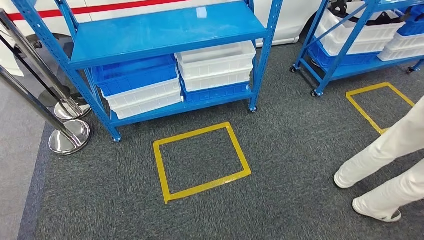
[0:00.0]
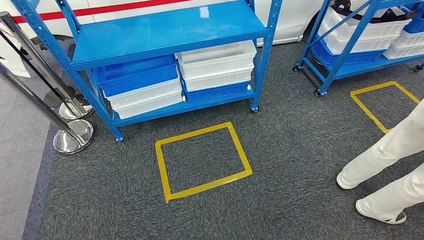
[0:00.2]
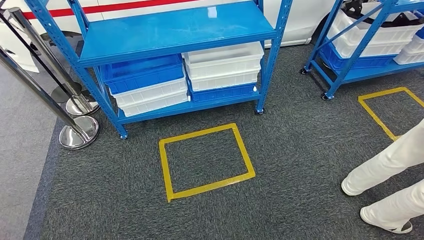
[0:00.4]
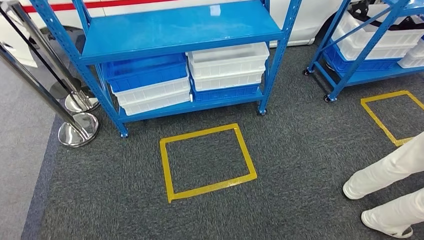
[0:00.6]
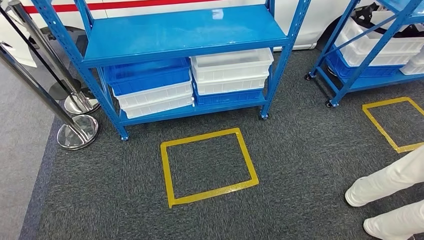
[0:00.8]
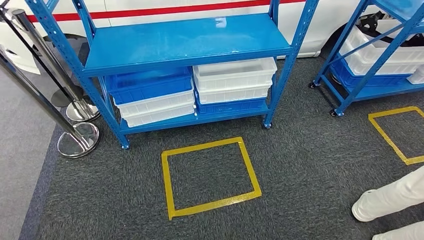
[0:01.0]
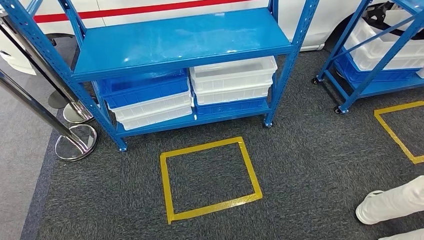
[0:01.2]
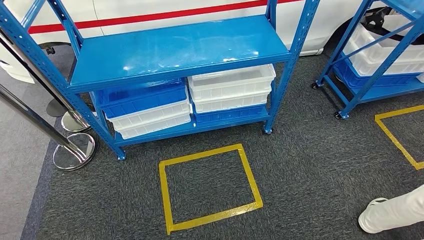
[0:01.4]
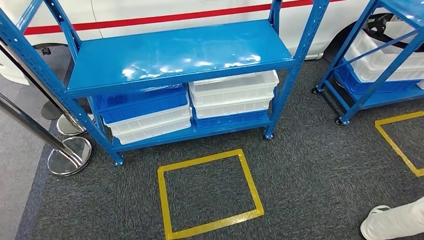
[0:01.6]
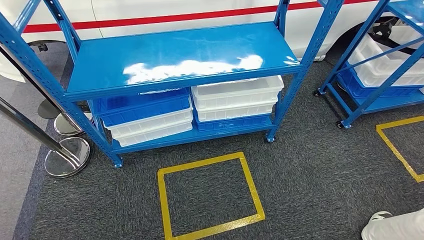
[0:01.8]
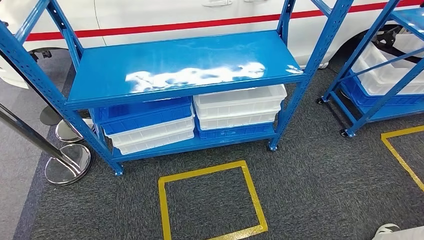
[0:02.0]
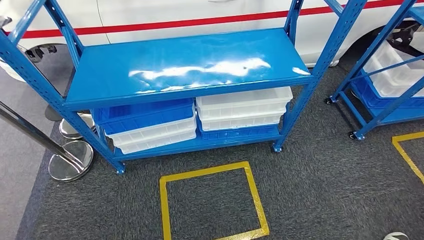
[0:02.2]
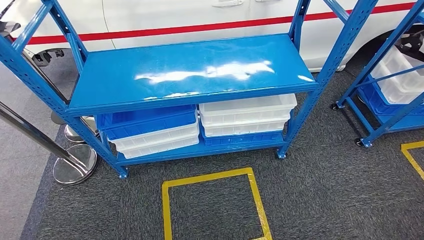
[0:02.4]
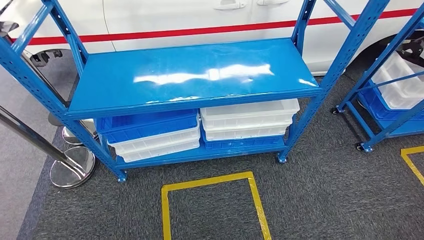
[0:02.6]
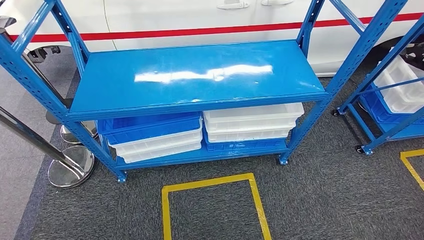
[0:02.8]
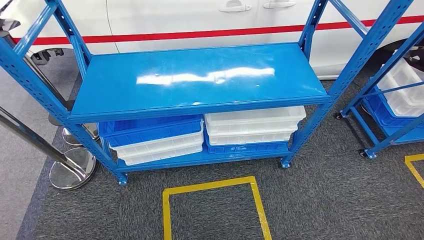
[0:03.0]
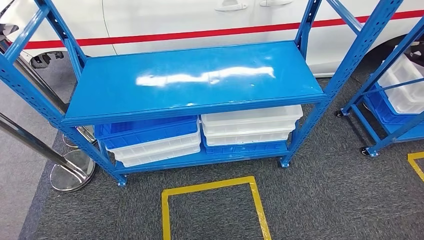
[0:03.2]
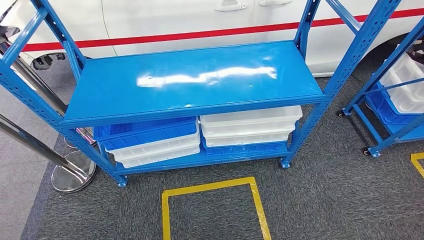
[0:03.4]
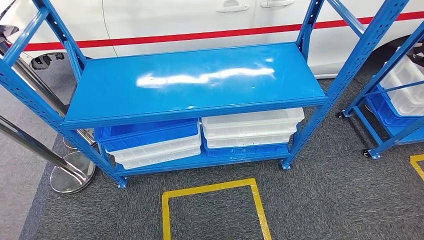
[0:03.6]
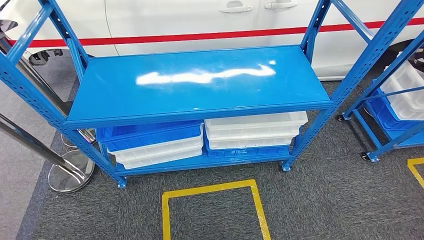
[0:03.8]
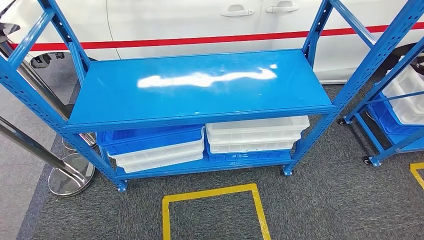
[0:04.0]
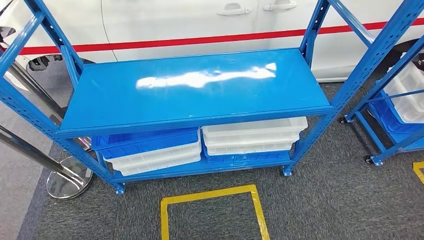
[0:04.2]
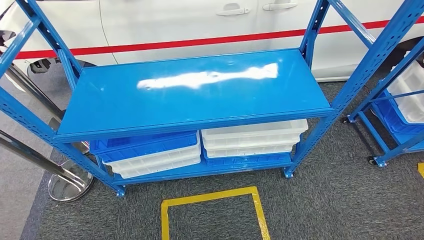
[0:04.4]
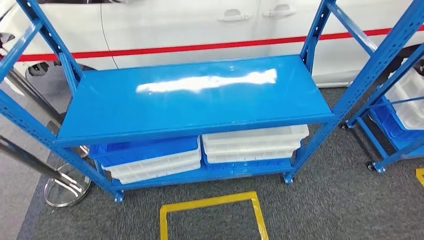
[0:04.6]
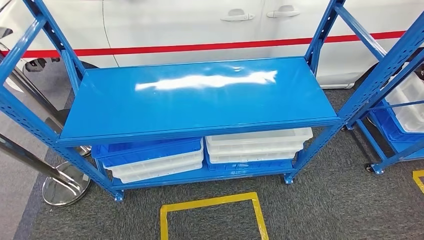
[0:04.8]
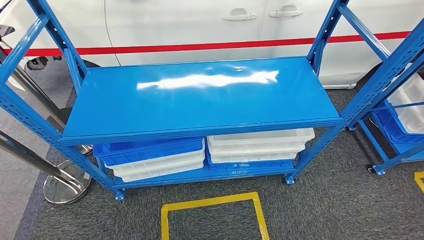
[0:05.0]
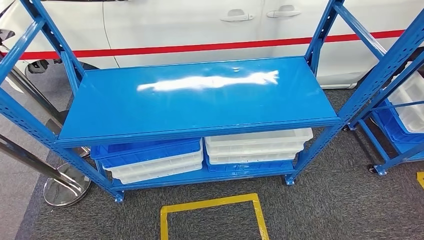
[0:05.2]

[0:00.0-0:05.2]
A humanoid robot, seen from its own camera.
Step, 0:00.0 to 0:05.2: Move to the initial position of the shelf.
